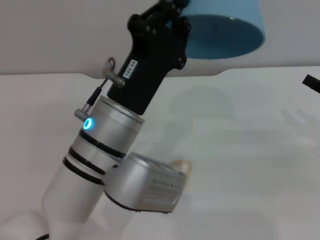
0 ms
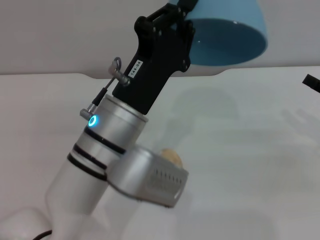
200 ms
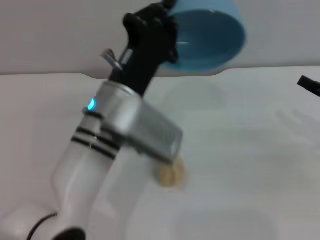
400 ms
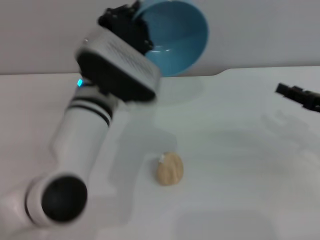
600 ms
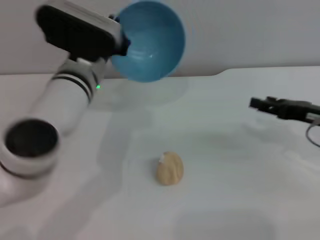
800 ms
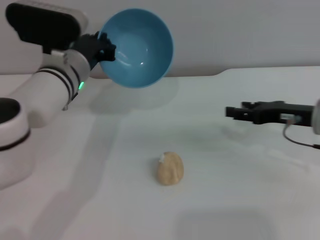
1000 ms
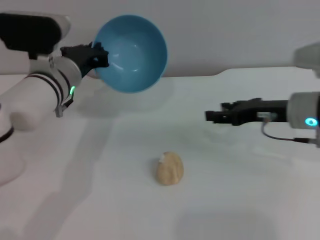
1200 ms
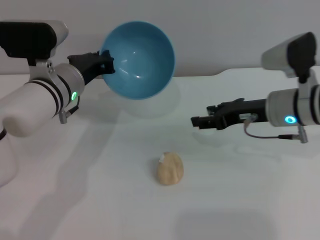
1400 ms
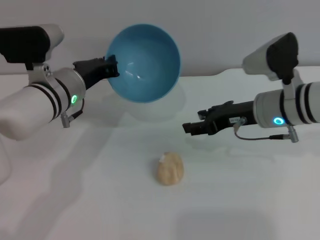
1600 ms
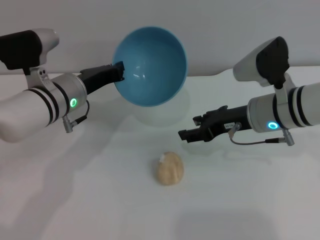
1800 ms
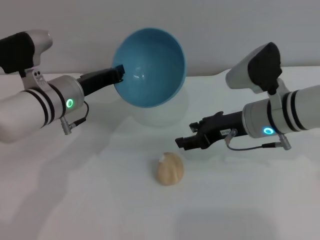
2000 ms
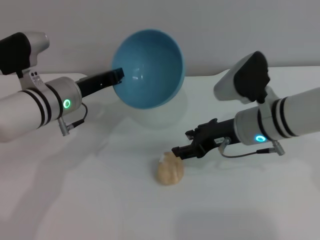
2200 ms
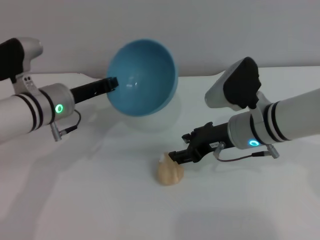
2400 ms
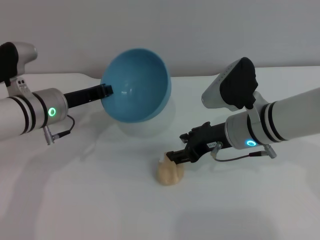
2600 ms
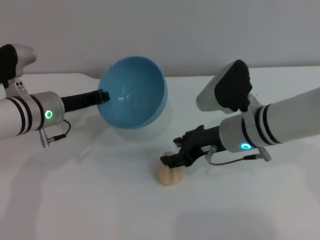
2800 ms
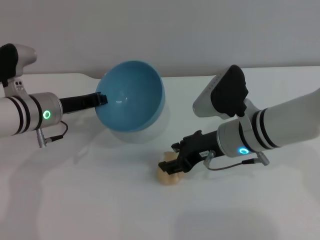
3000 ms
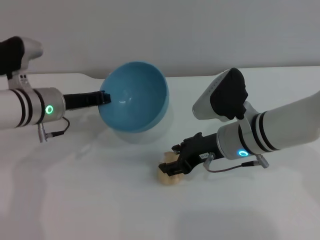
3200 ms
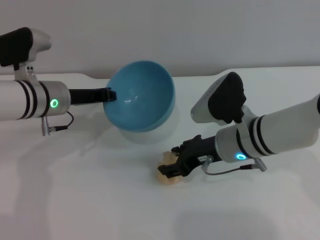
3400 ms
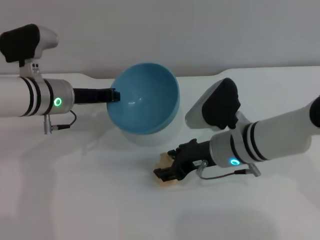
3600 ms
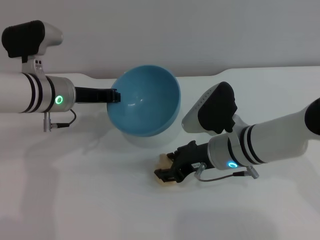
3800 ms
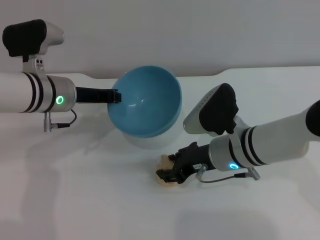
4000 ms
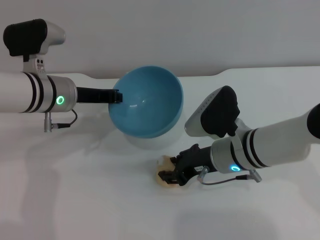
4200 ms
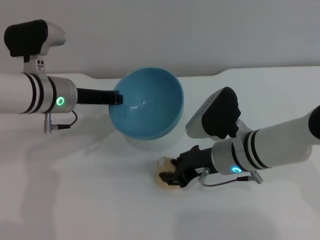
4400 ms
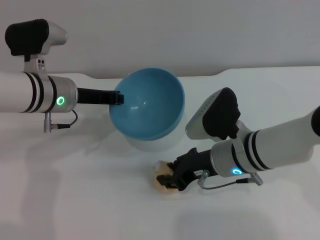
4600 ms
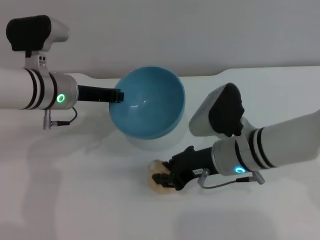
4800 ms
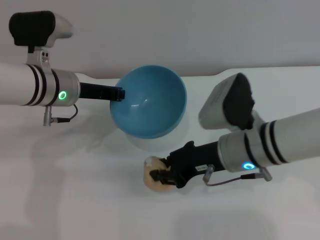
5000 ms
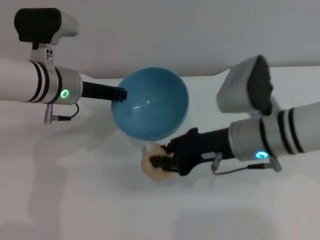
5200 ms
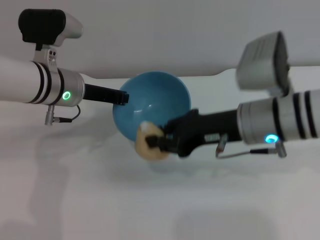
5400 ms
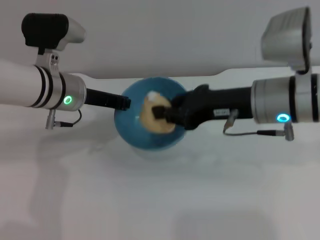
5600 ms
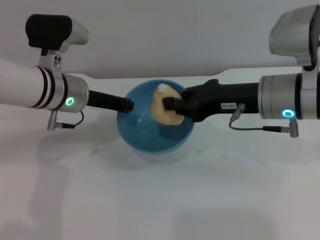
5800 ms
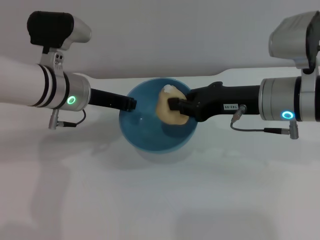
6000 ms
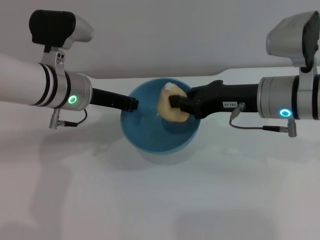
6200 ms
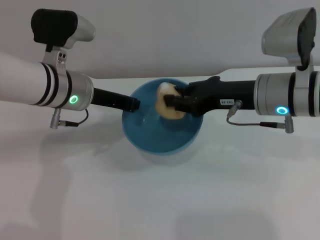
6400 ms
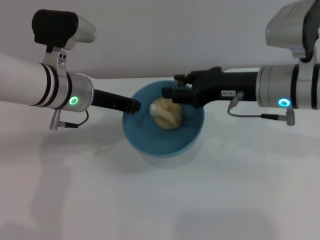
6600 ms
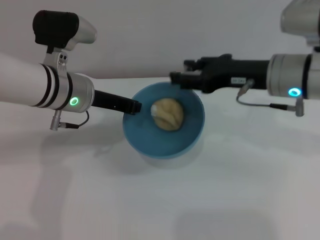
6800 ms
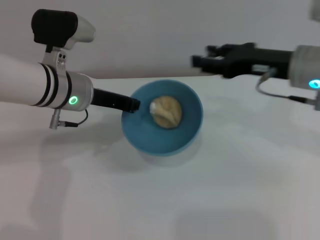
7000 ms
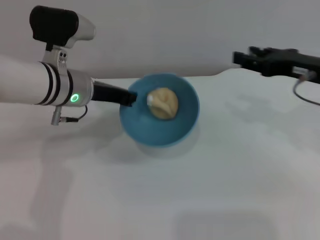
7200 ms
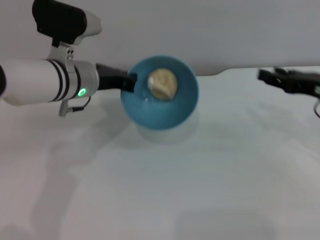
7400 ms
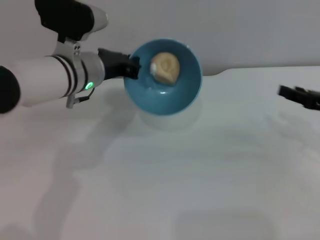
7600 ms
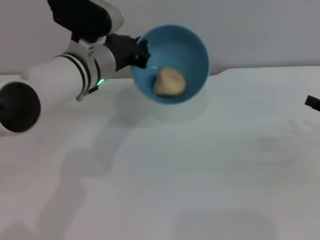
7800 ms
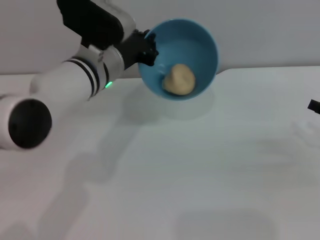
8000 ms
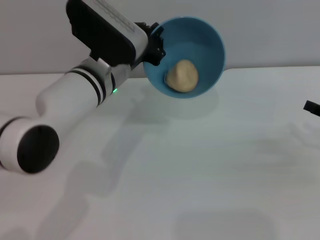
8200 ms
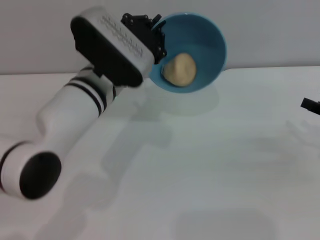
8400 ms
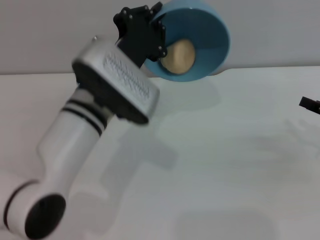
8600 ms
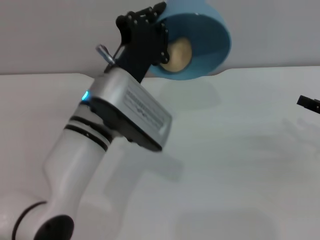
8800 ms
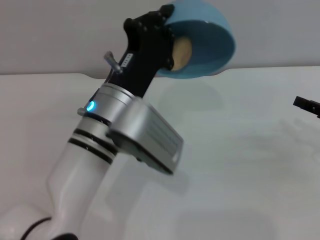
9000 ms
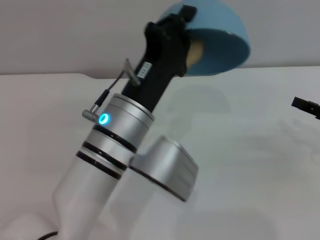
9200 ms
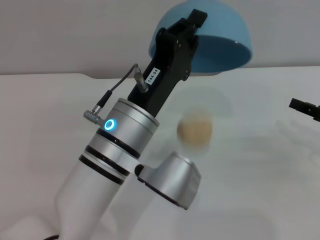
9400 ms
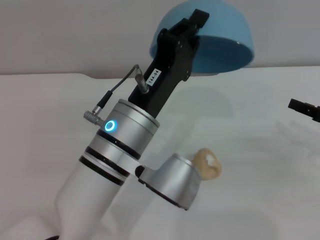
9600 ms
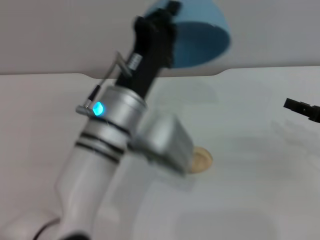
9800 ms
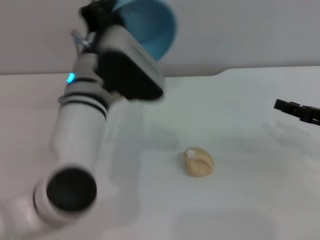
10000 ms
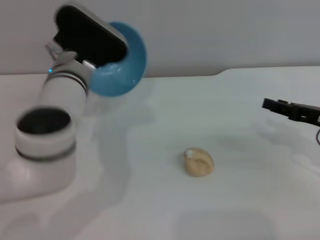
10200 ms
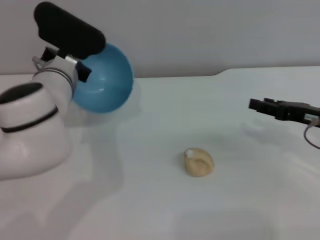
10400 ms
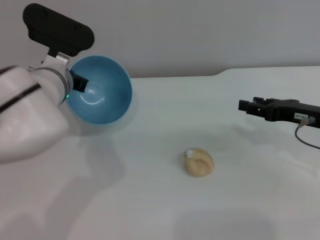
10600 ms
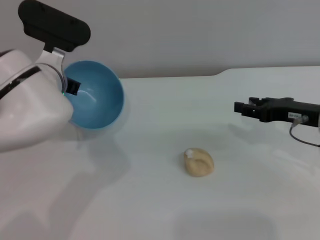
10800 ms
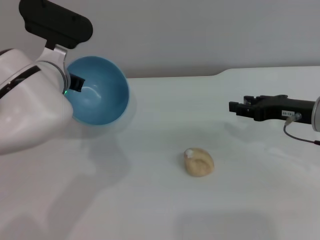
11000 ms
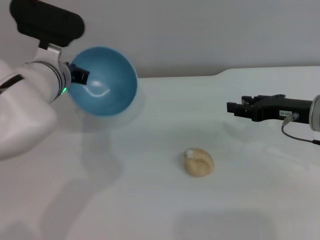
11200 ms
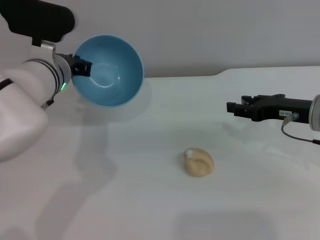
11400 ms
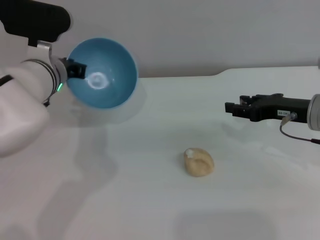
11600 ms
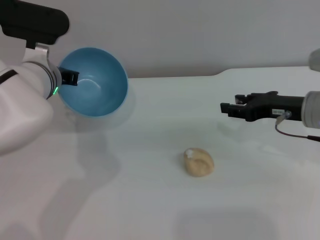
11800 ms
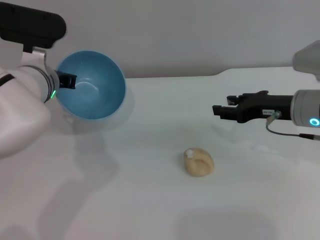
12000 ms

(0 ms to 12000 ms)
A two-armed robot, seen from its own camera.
Task of the whole recording: put the egg yolk pastry into the blue bowl and pour it out repeatedly.
Step, 400 ms - 5000 ms: Pick up the egg yolk pastry with the right gripper.
Step, 5400 ms - 6600 ms: Place the egg yolk pastry into the bowl.
Step, 7000 ms - 9600 ms: Pour the egg yolk pastry out of bowl.
0 ms - 1600 ms: The left gripper goes some 15 cm forward and to the left; the right gripper is displaced to the left and forward by some 20 cm.
1600 ms - 3000 ms: The two grippers go roughly 5 cm to the left.
4400 ms - 6000 ms: The right gripper goes roughly 10 cm upward and to the right, and closes up.
6000 ms - 7600 ms: The right gripper heads to the right, covering roughly 15 cm, and opens its fingers.
7600 ms - 9000 ms: The left gripper is displaced backward and to the right by approximately 10 cm.
9000 ms - 10400 ms: The left gripper is displaced forward and to the left by about 15 cm. Meanwhile the right gripper travels to the left by some 5 cm.
10400 ms - 12000 ms: The right gripper moves to the left, approximately 5 cm.

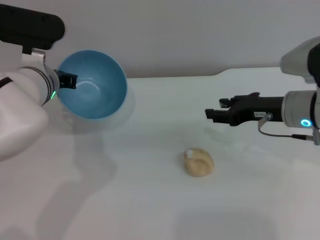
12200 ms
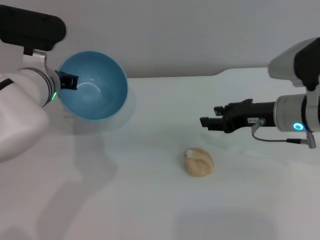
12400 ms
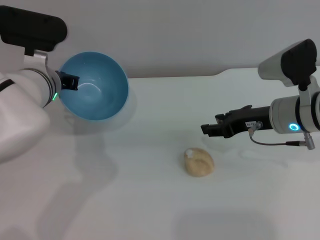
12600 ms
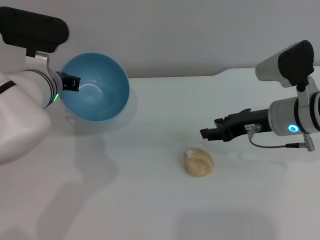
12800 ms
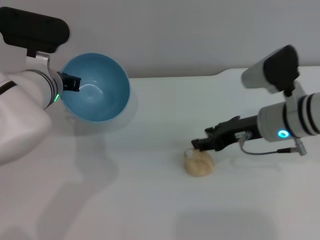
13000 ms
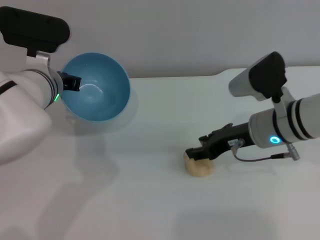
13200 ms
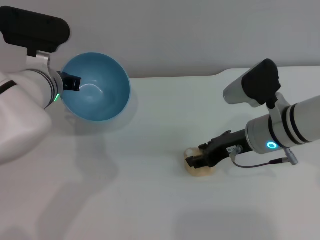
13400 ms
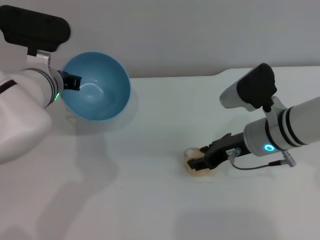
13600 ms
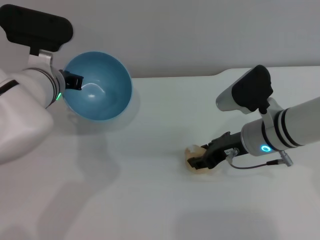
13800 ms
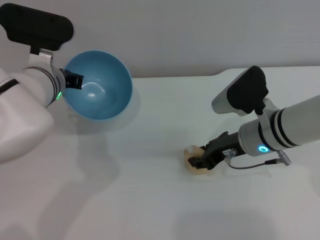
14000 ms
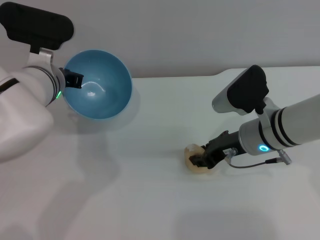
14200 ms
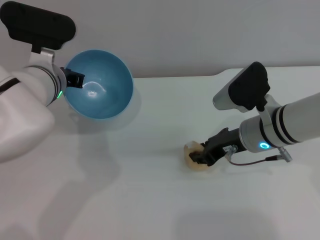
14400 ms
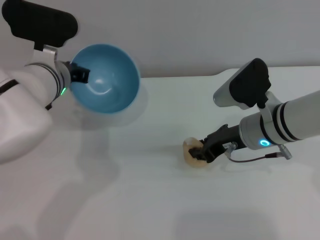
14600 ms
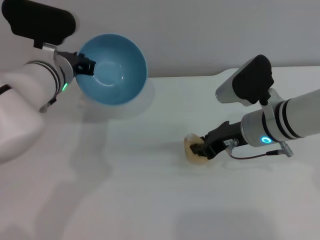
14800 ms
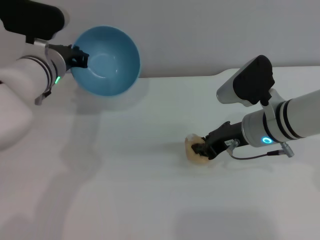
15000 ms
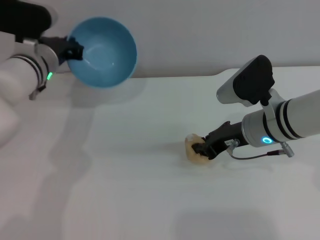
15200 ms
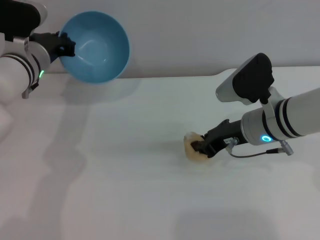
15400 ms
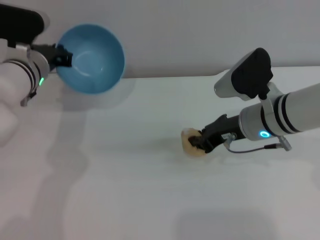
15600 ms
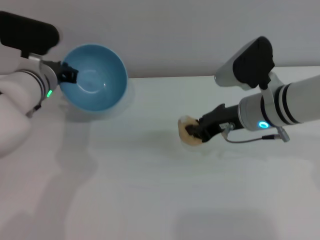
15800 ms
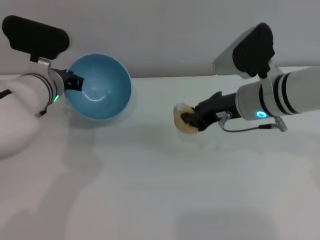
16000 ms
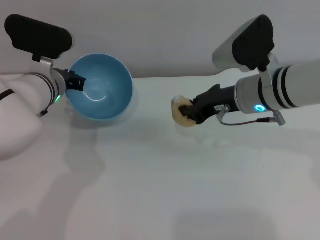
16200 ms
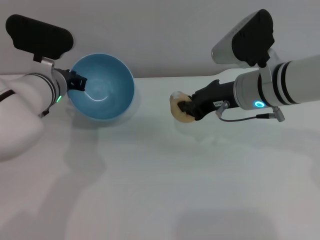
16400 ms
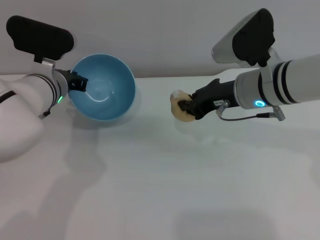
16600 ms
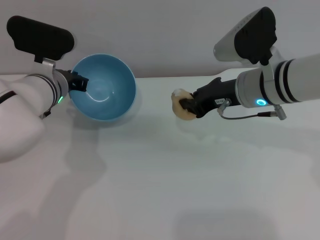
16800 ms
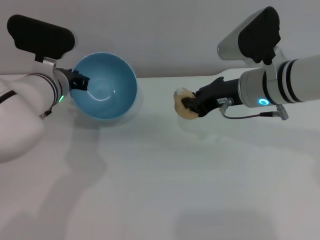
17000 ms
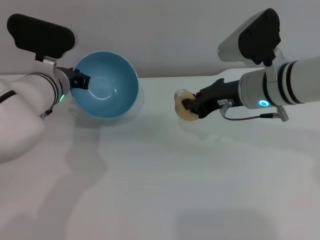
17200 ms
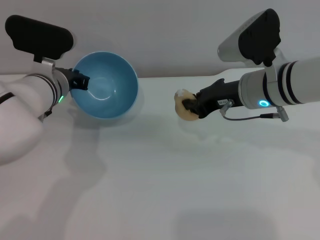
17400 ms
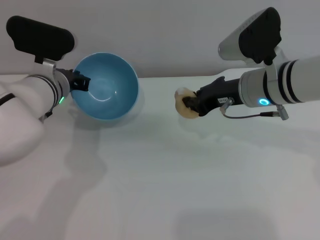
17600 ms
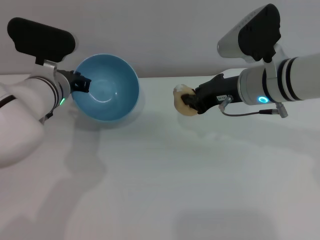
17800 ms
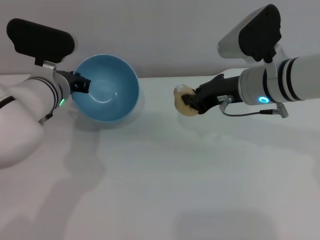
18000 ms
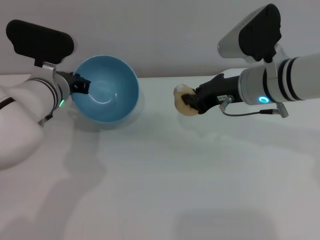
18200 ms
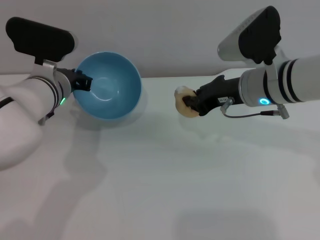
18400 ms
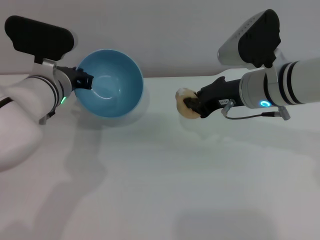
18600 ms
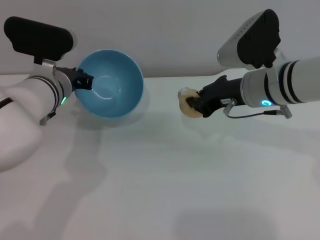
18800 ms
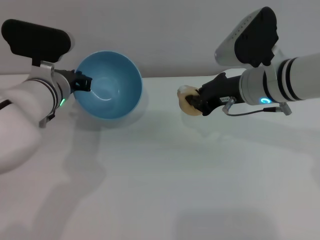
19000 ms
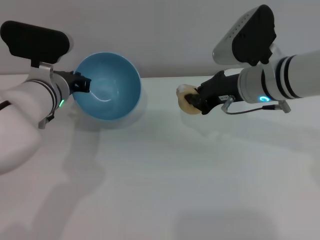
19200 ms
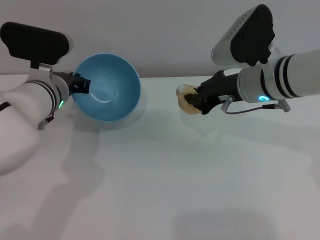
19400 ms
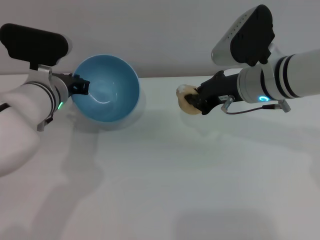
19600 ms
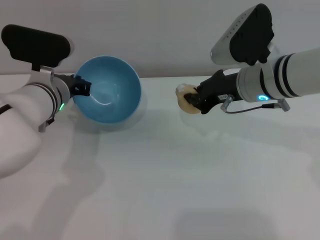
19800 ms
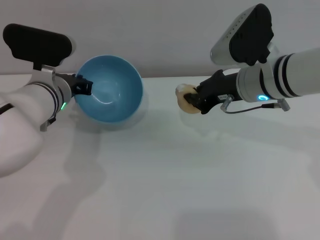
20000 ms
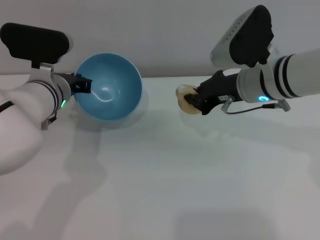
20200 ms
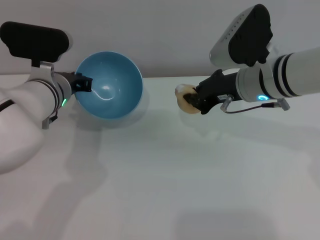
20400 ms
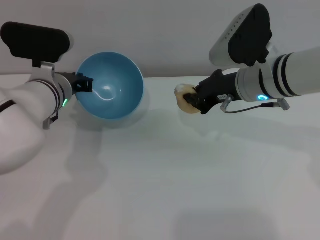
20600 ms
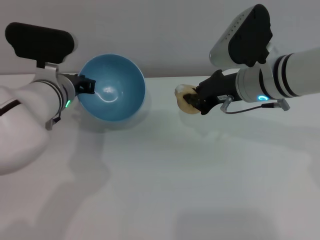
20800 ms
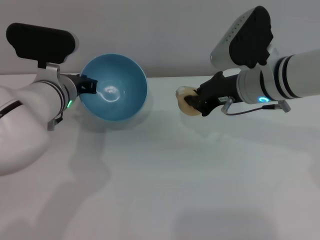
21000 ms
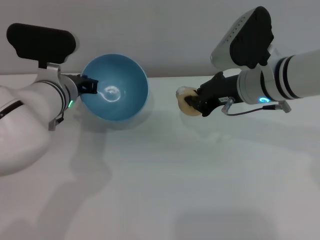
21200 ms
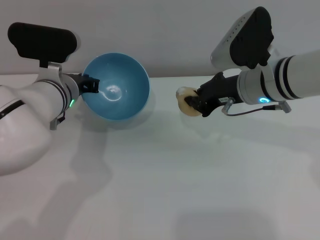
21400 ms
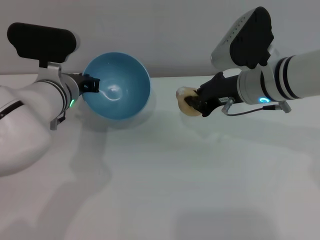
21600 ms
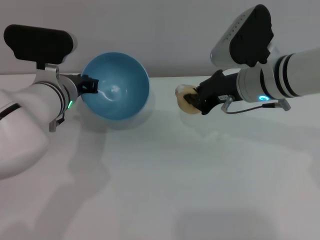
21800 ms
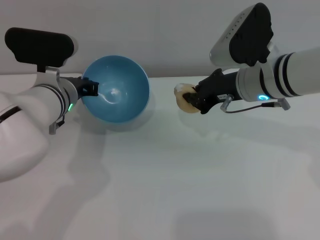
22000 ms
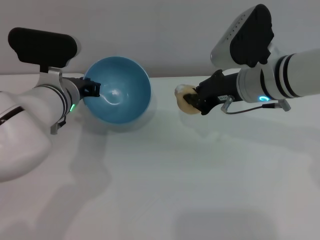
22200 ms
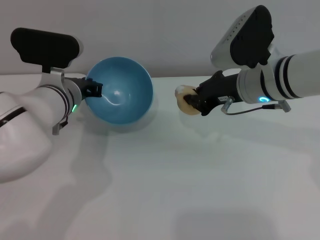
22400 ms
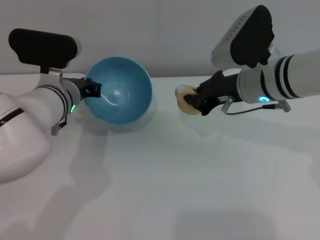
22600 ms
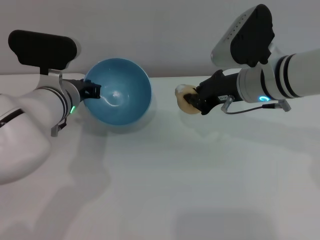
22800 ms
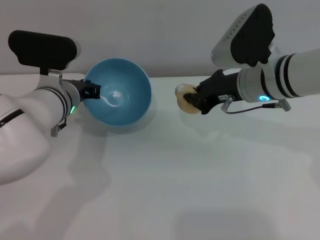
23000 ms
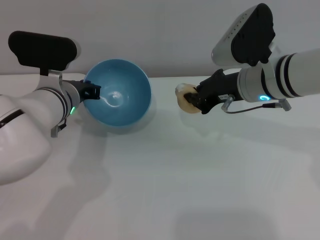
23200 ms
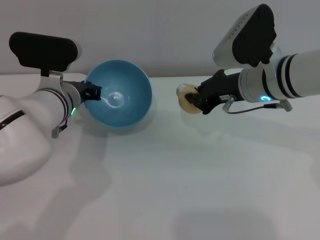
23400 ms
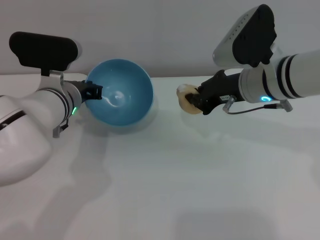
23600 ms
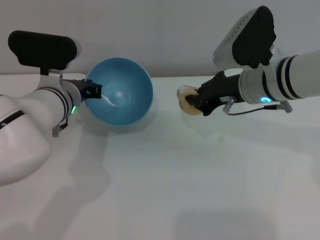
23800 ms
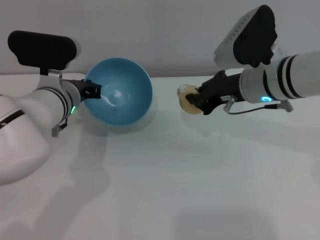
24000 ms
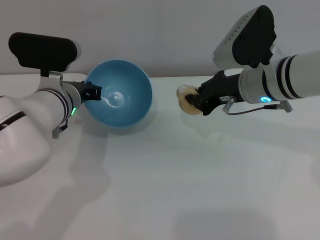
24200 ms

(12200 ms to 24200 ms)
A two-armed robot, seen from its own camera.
Task of the whole recording: put the egg yolk pastry into the blue bowl and pour it out repeatedly.
Step, 12200 ms - 15800 ms: Pick up the egg yolk pastry with the right gripper.
12200 ms - 13800 ms: The right gripper goes roughly 5 cm to the left.
13800 ms - 15200 ms: The right gripper closes; the left gripper ends up approximately 5 cm from where it was.
15200 ms - 16600 ms: The right gripper is displaced upward by about 5 cm.
16600 ms - 18200 ms: Both grippers stay about where they are.
18200 ms - 19800 ms: The grippers stay close to where they were, moving slightly.
19800 ms - 21200 ms: Both grippers stay put.
21200 ms - 24200 ms: Both grippers stay about where they are.
